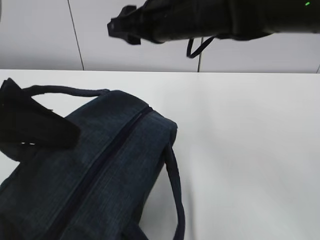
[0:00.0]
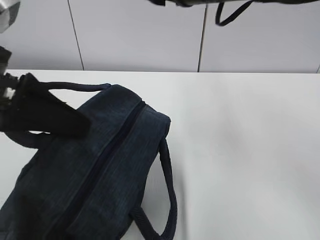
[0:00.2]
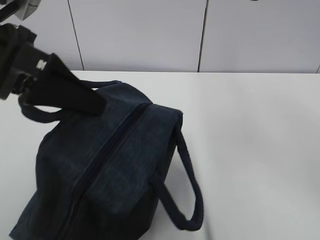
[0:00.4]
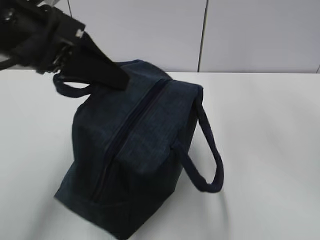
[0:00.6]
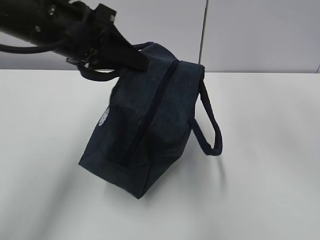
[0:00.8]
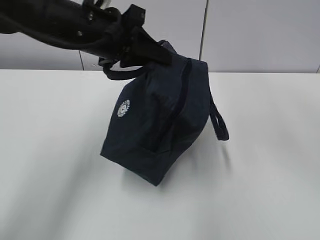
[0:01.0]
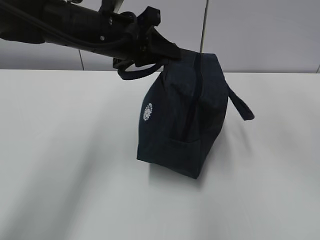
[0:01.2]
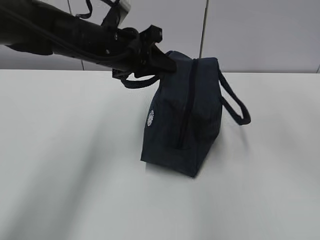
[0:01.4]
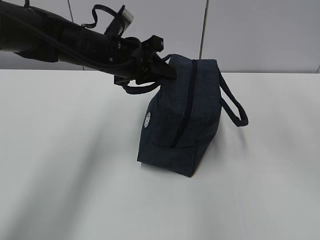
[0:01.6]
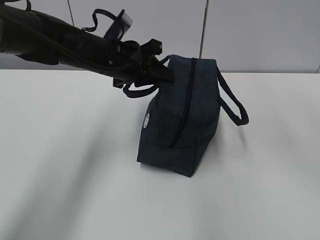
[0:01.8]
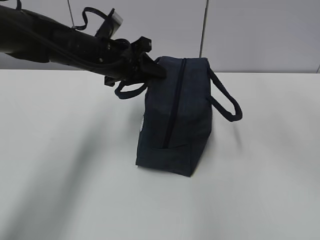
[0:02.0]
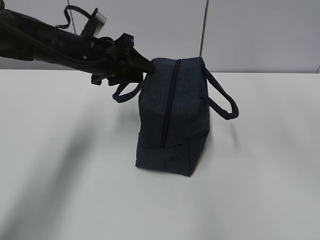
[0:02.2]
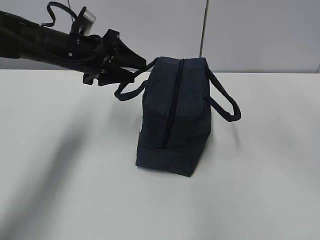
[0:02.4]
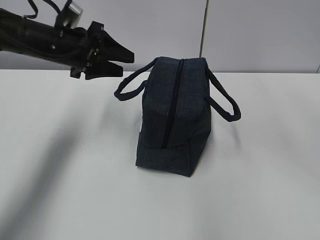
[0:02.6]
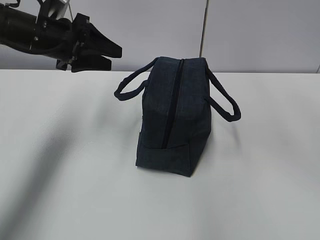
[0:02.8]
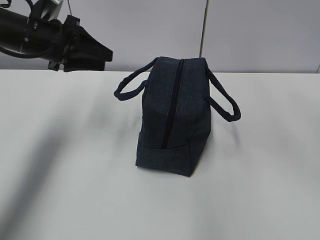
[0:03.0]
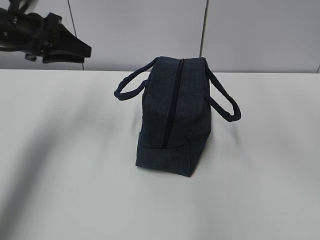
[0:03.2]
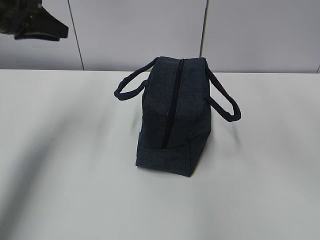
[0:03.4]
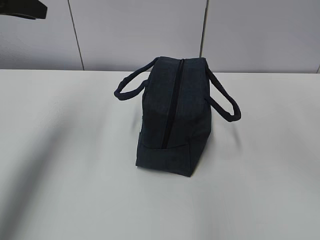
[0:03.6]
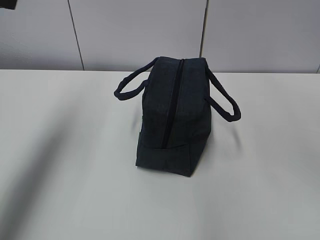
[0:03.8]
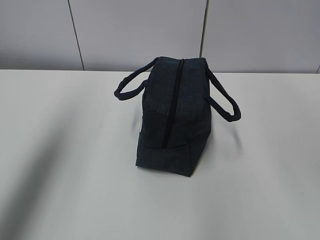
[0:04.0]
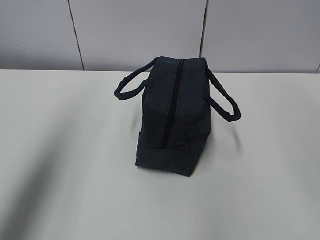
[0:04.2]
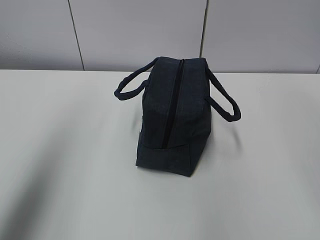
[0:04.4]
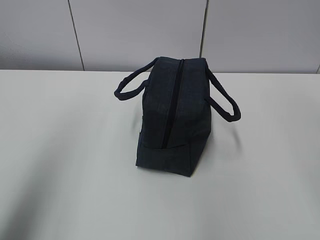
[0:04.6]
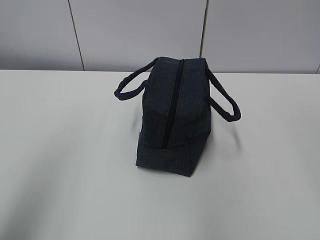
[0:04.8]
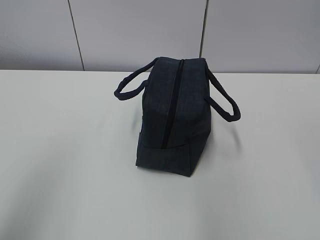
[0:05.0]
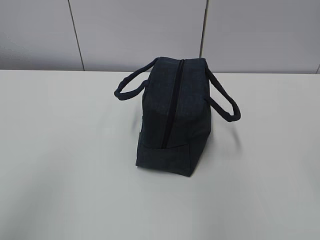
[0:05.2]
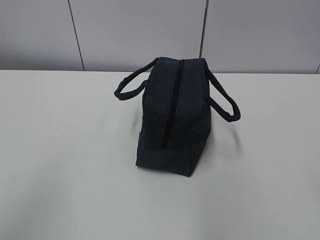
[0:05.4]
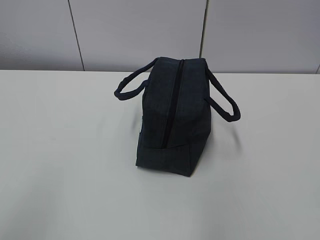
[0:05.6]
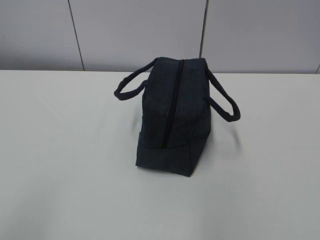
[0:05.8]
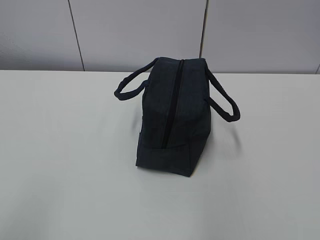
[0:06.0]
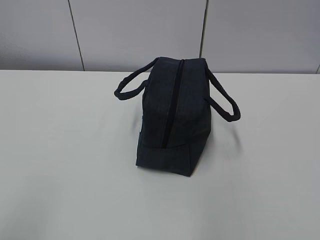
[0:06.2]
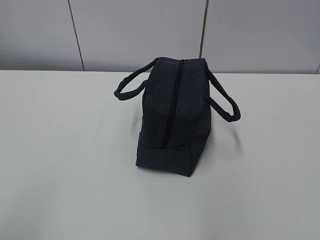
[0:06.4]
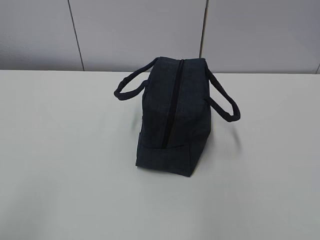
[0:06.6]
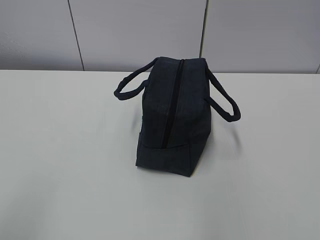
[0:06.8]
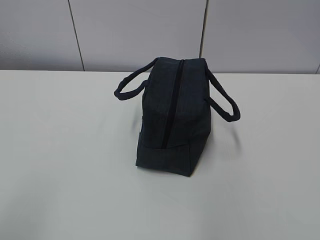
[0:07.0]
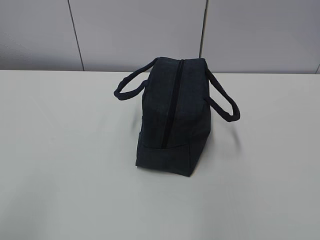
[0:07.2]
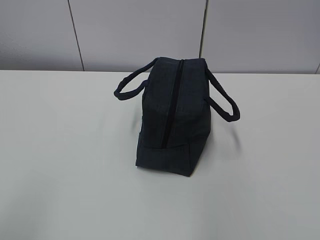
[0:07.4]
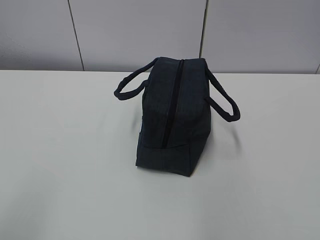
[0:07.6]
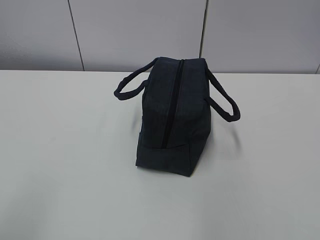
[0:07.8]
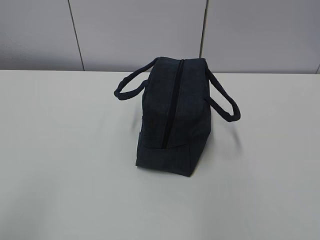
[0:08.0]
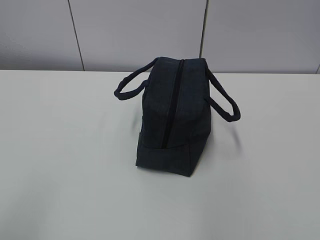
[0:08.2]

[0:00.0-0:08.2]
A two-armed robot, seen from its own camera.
0:00.0 to 0:01.6: The left gripper shifts about 25 cm forward, to the right and downward. Meanwhile the right gripper goes some 15 cm to the right and upward.
0:01.6 to 0:03.2: The left gripper is displaced to the left by some 15 cm, and opens up.
0:03.2 to 0:05.0: The left gripper is displaced backward by about 35 cm.
